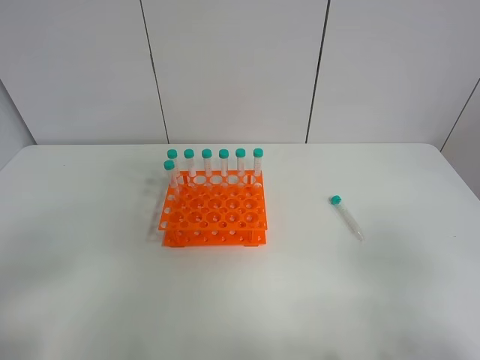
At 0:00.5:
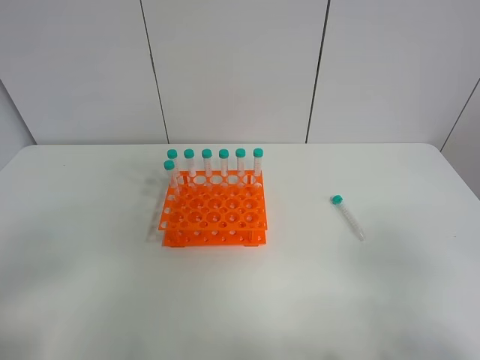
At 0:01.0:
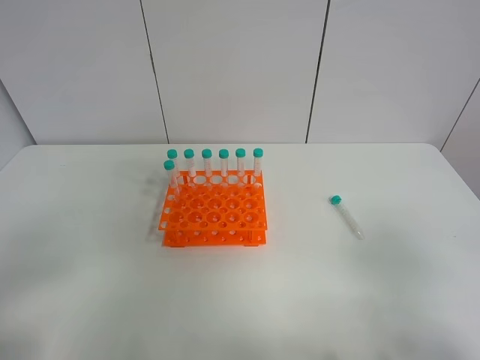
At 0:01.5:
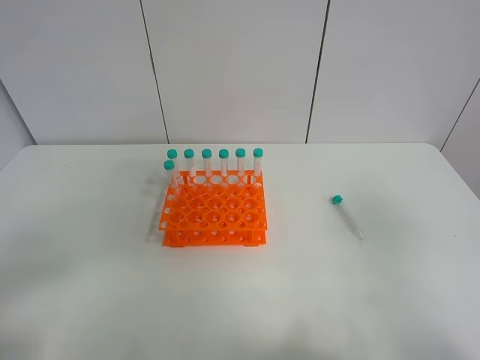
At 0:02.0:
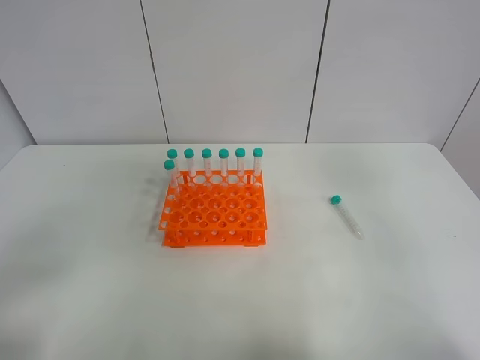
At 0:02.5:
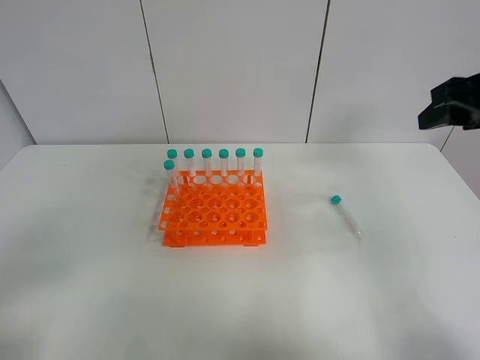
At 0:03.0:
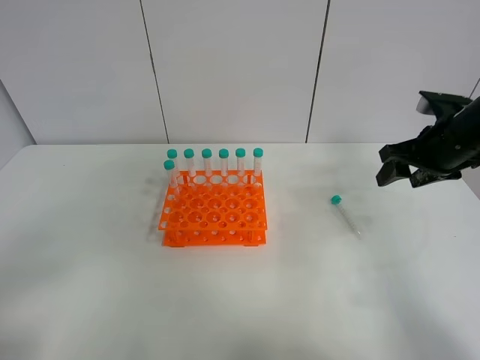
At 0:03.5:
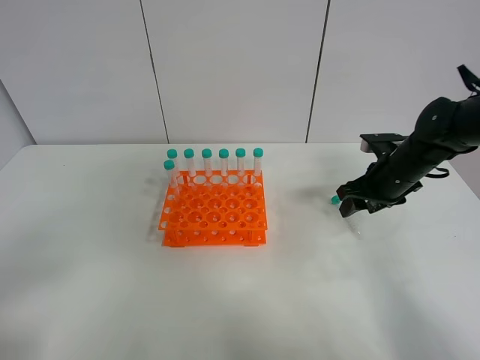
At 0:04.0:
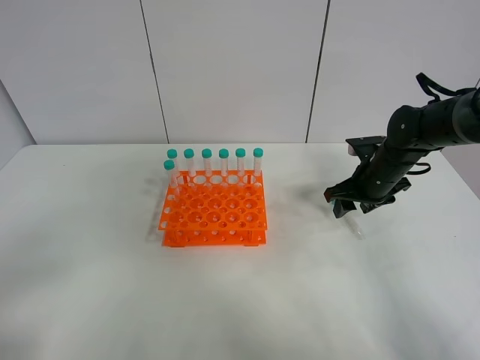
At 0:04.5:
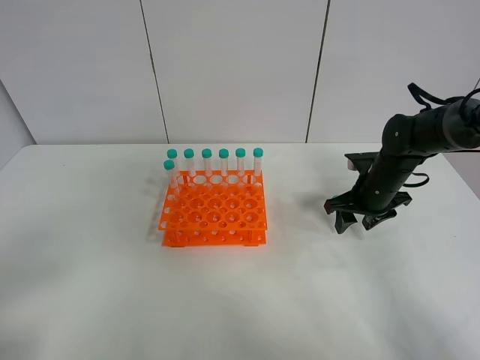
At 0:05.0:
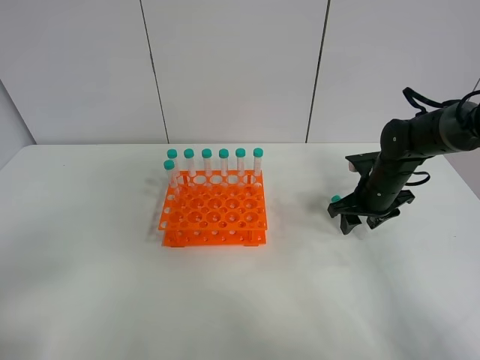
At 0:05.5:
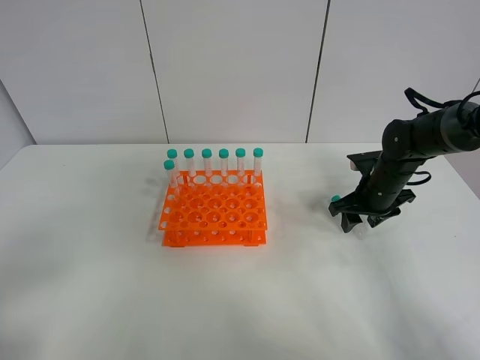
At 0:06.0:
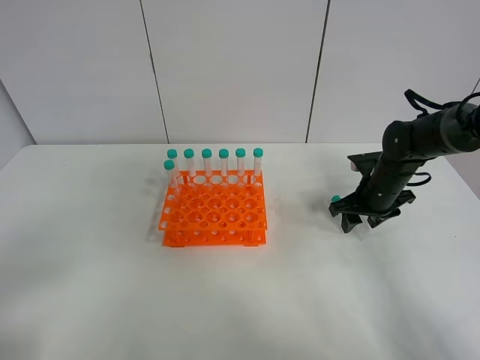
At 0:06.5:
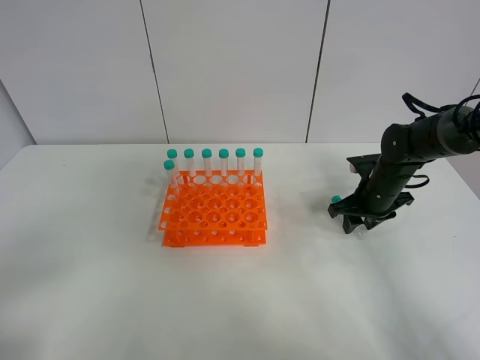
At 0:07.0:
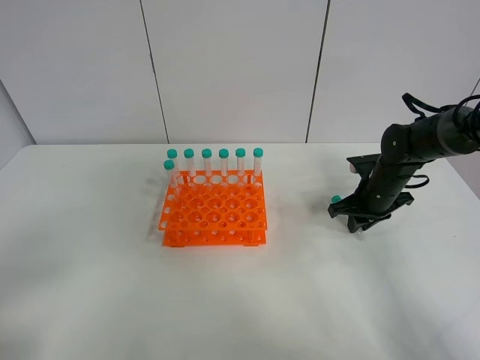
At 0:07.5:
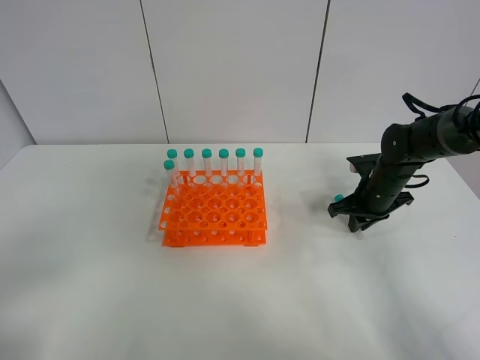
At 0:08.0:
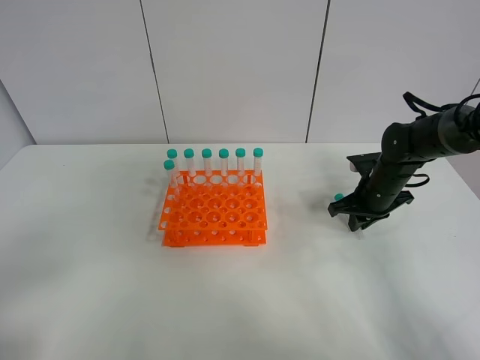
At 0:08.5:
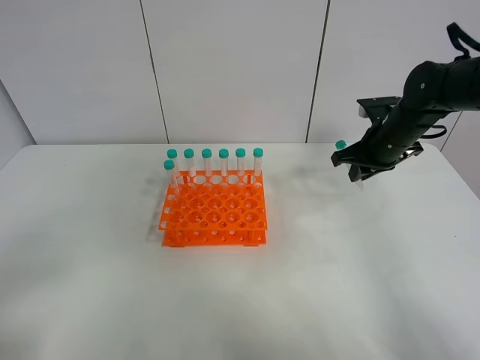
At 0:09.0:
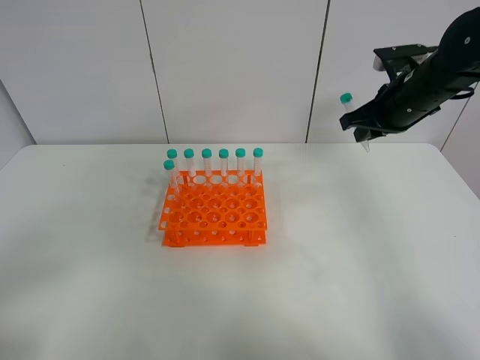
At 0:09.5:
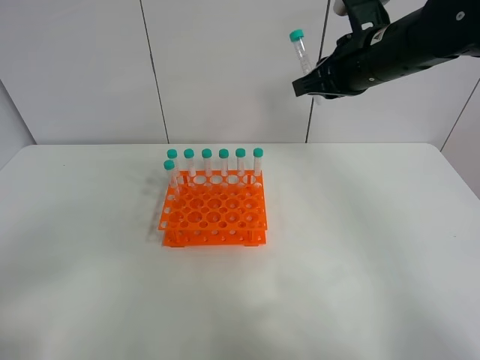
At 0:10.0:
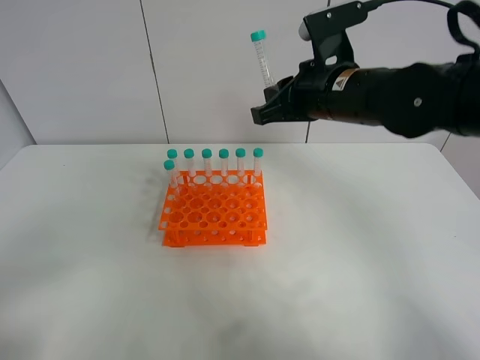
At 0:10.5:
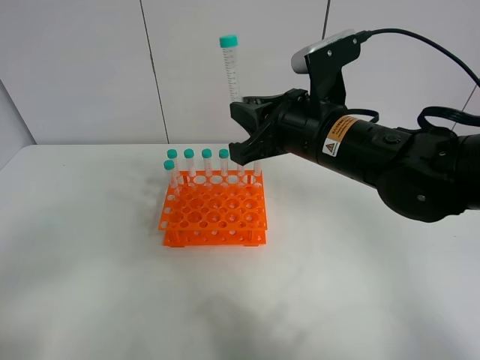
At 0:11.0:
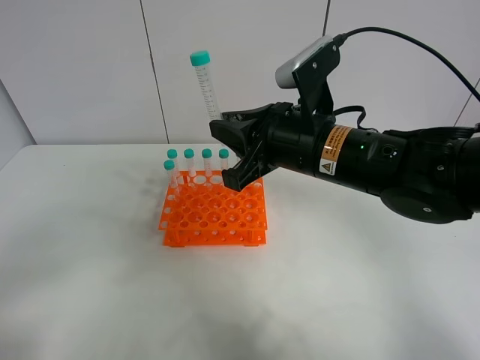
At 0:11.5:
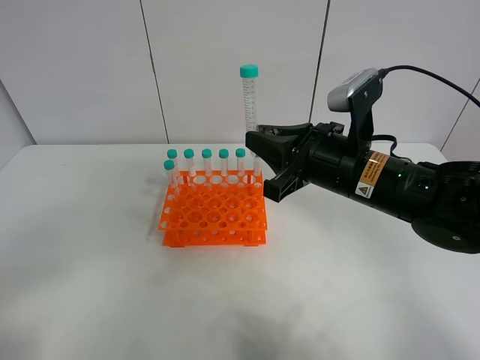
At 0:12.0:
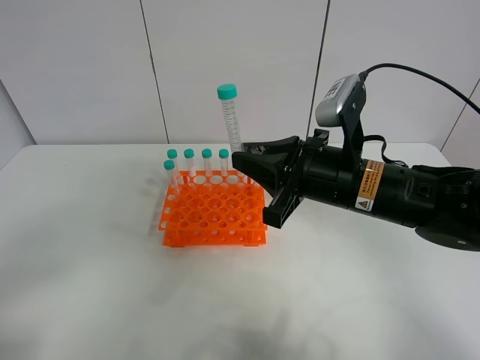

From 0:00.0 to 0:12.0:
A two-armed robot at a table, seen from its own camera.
Task of the whole recording: Put the test tube on the table back onto the test tube rack.
Step, from 0:00.0 to 0:08.5: Pick up the test tube with the right gripper.
From 0:00.0 to 0:02.0: The right gripper moves forward and upward, roughly 20 cm.
From 0:02.0 to 0:04.0: The right gripper shifts roughly 35 cm downward and forward.
From 0:04.0 to 0:06.0: The grippers make only small movements.
From 0:06.0 to 0:08.0: The right gripper closes up.
From 0:08.0 to 0:10.0: The right gripper is displaced upward and to the left by roughly 25 cm.
From 0:10.0 to 0:12.0: The right gripper heads backward and downward, covering some 10 cm.

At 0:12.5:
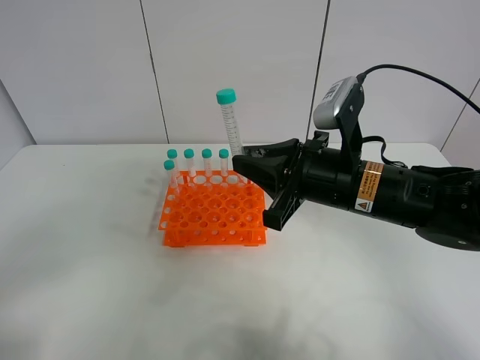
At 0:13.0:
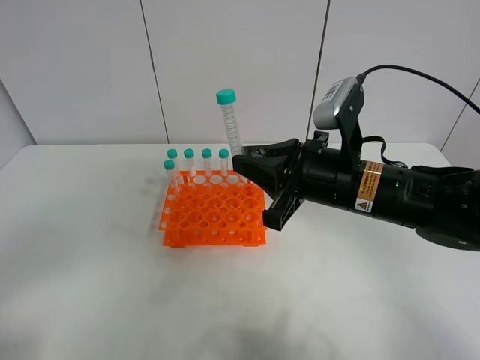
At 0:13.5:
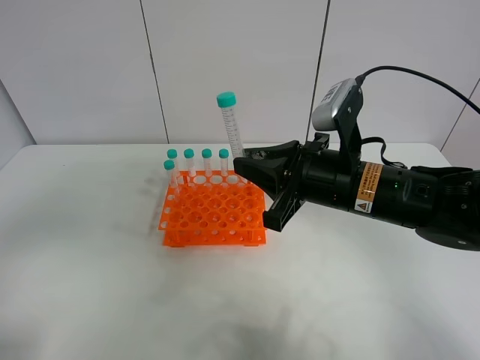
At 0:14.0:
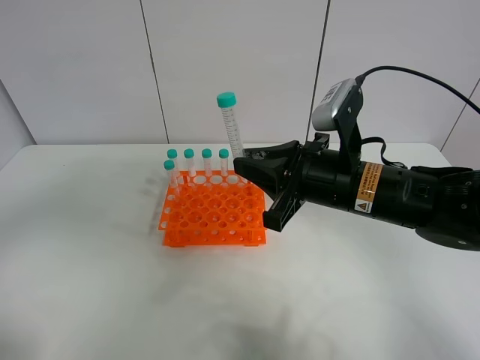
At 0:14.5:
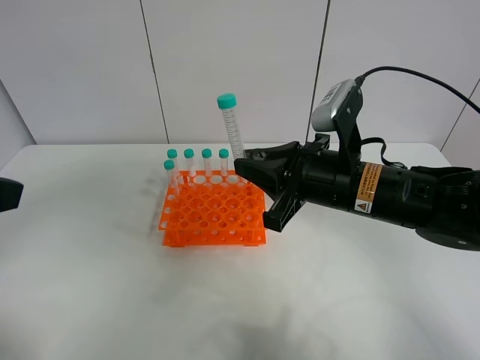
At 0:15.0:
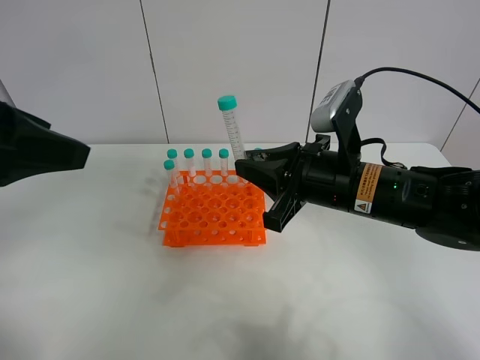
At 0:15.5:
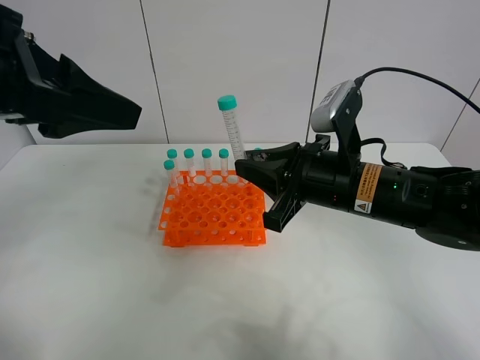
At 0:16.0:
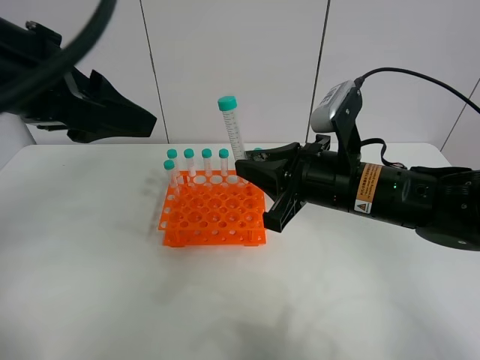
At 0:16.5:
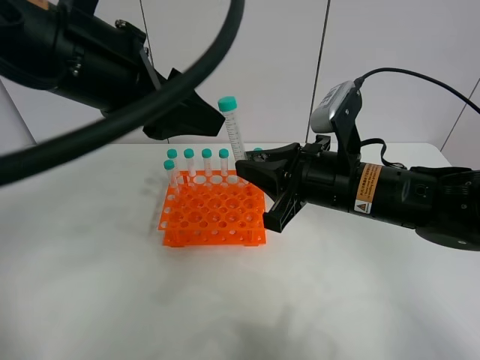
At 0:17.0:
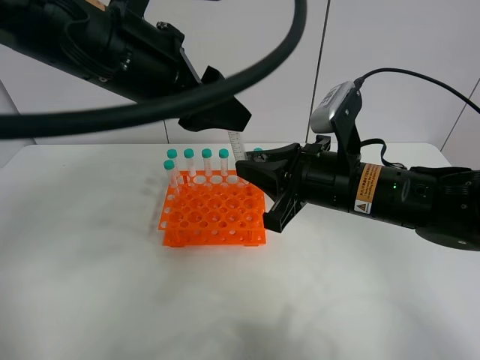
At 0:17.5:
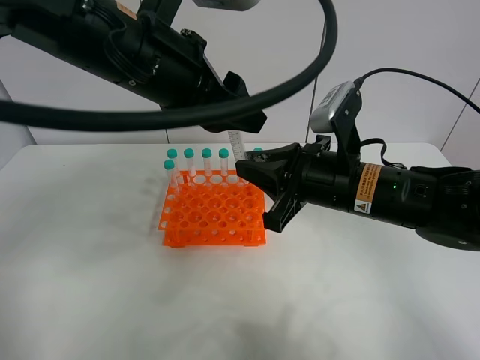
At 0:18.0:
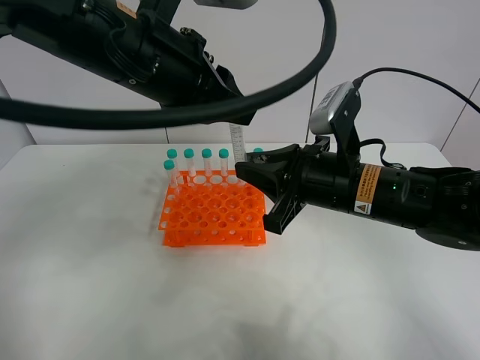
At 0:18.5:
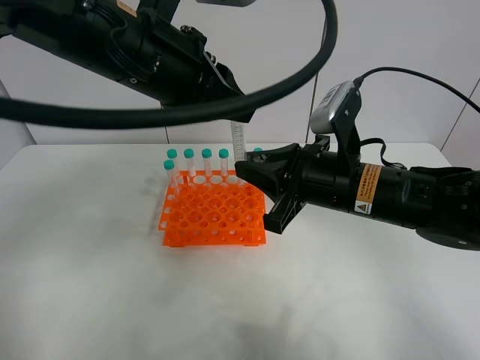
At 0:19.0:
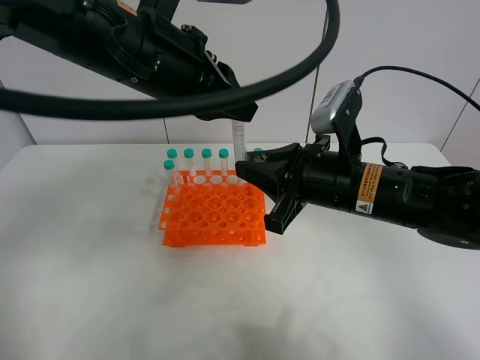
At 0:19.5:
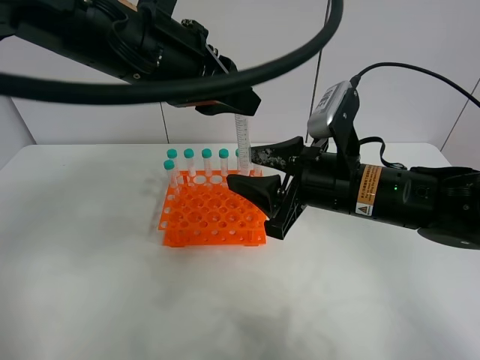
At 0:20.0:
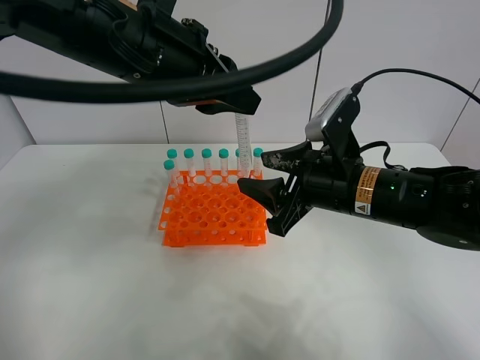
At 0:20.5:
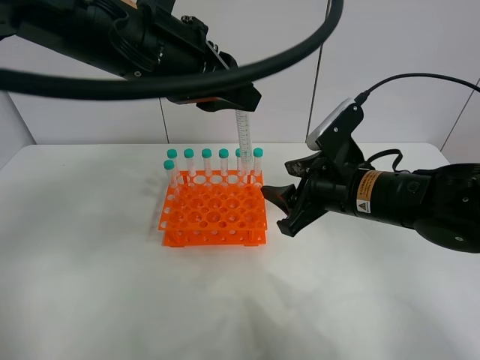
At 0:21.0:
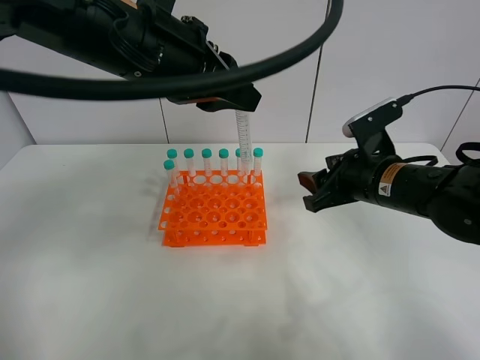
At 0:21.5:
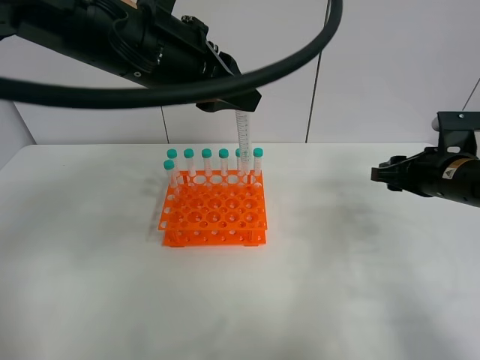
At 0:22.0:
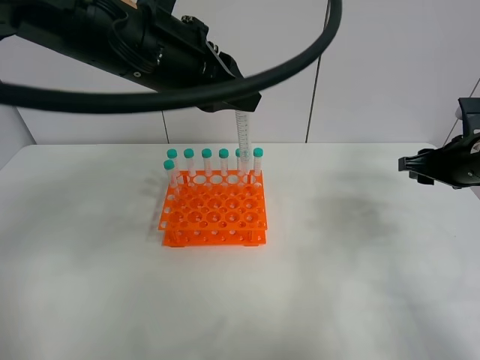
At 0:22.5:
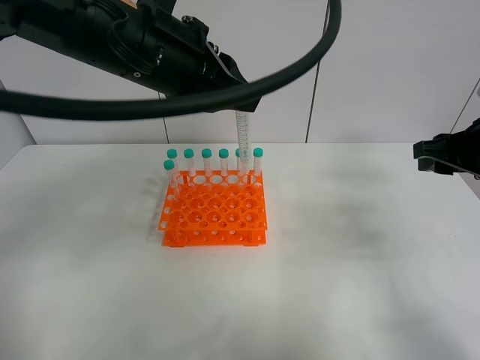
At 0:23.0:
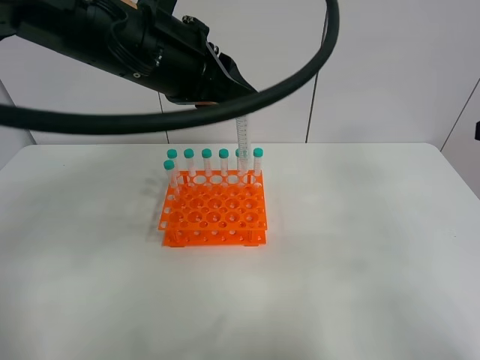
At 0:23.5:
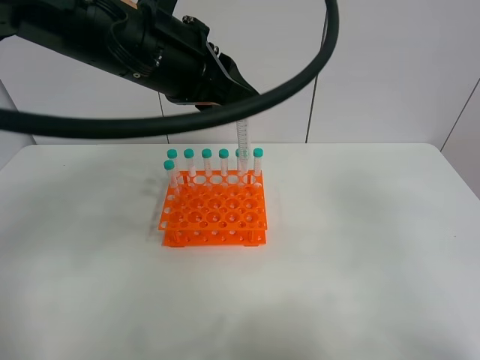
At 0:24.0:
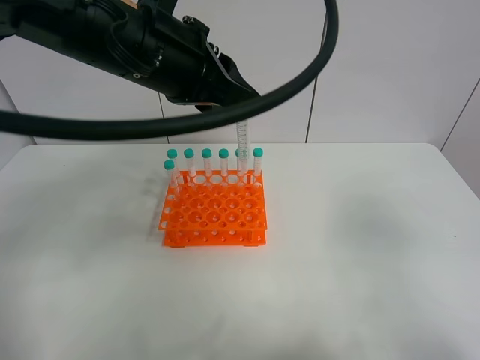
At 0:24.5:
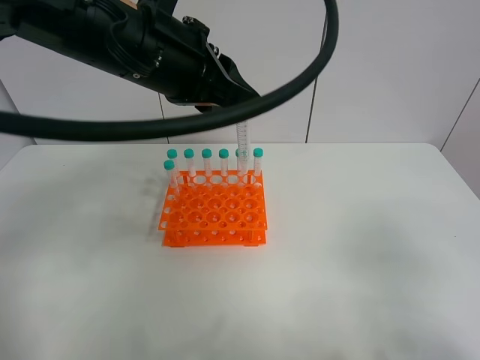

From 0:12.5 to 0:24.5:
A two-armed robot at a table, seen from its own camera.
Task of the whole recording: Put the test tube on the table back onto the test tube rack.
Step, from 0:12.5 to 0:20.5: Move the test tube from the right gripper to the left gripper.
From 0:12.5 to 0:14.5: The left gripper goes approximately 15 cm forward and upward.
From 0:14.5 to 0:16.5: The left gripper is displaced forward and to the right by roughly 20 cm.
From 0:16.5 to 0:18.5: The left gripper shifts by approximately 5 cm, and closes up.
From 0:18.5 to 0:20.5: The right gripper opens its fingers.
From 0:20.5 to 0:22.5: The right gripper travels to the right and upward by about 20 cm.
From 0:22.5 to 0:24.5: The right gripper goes roughly 25 cm backward.

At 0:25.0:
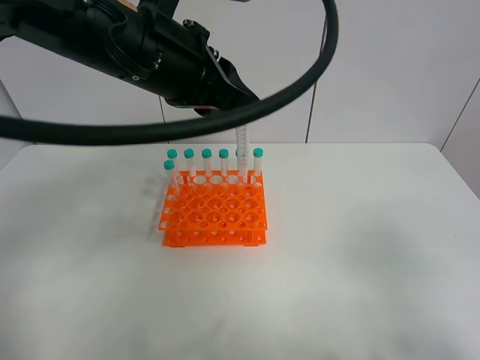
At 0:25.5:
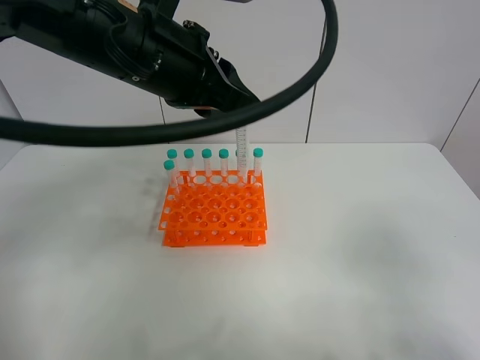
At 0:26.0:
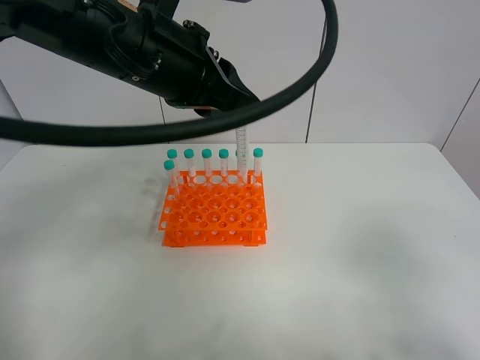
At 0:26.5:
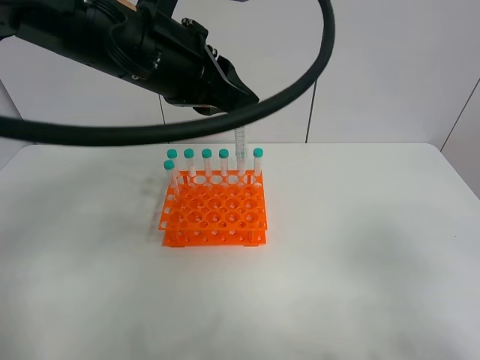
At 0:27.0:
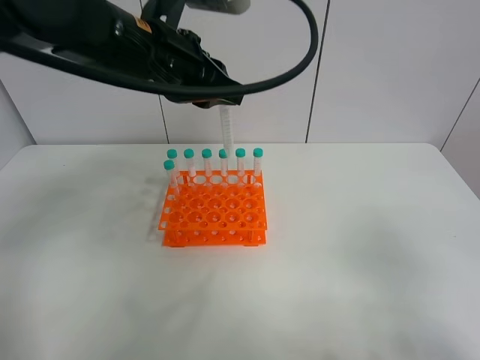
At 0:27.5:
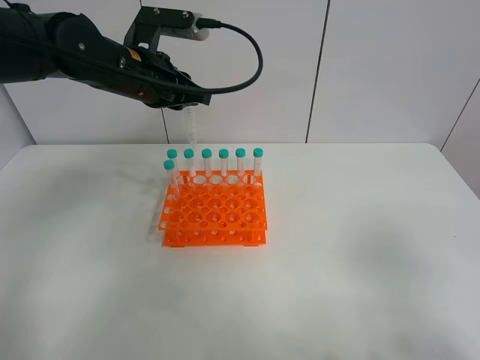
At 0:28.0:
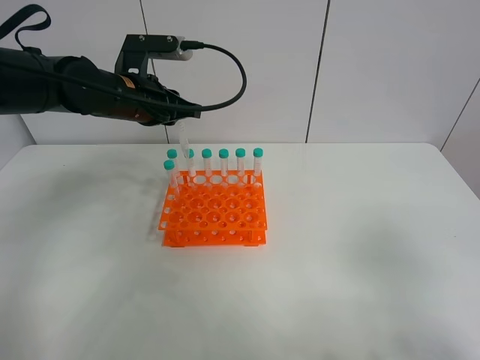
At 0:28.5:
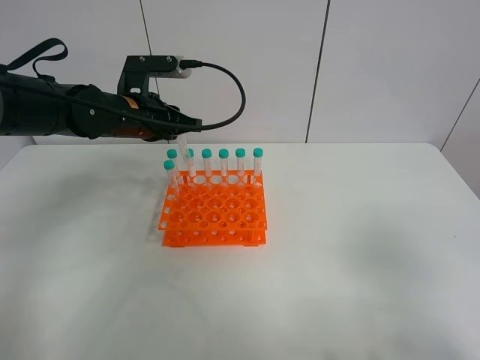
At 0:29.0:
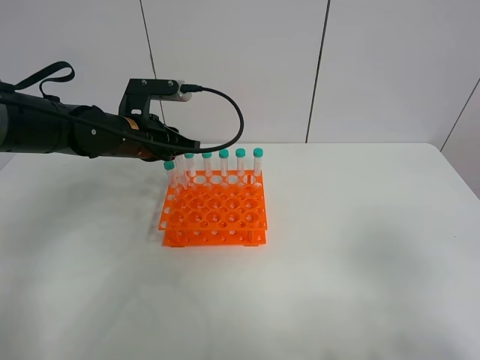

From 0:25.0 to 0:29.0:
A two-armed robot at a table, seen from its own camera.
Task of the whole recording: Put the test tube on the table back onto the test tube rack.
From 0:25.0 to 0:27.0: The left gripper moves forward, about 5 cm.
From 0:27.0 to 0:29.0: The left gripper goes approximately 15 cm downward and to the left.
